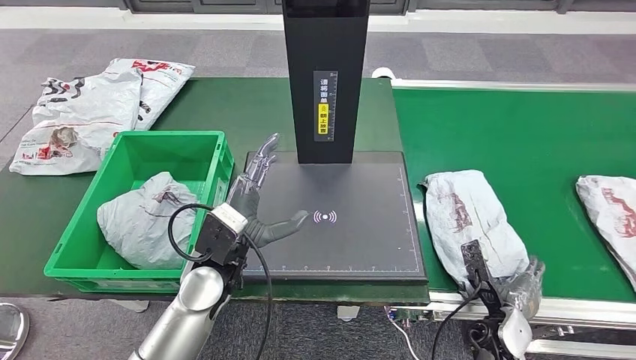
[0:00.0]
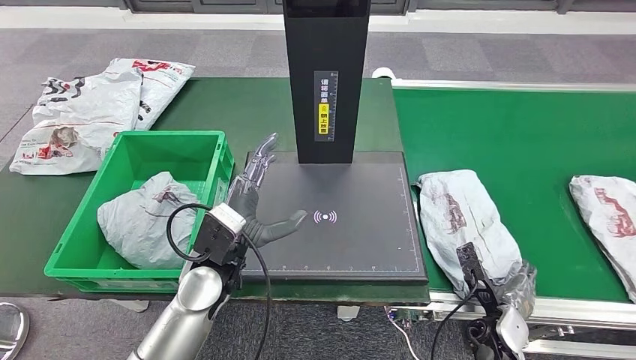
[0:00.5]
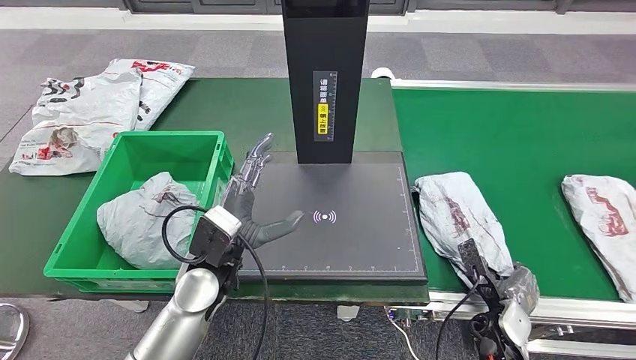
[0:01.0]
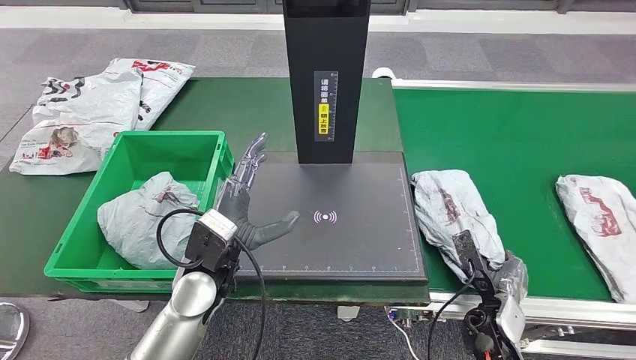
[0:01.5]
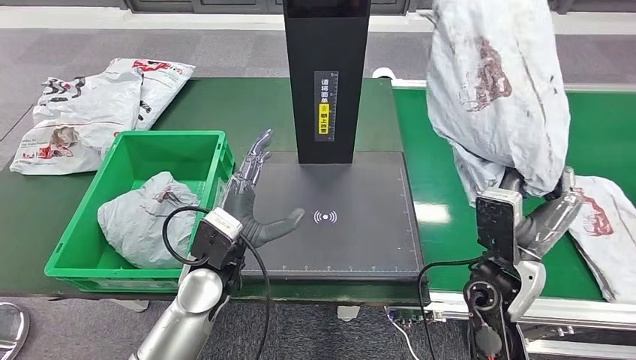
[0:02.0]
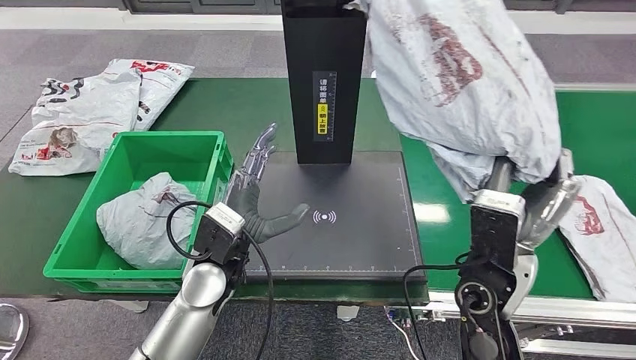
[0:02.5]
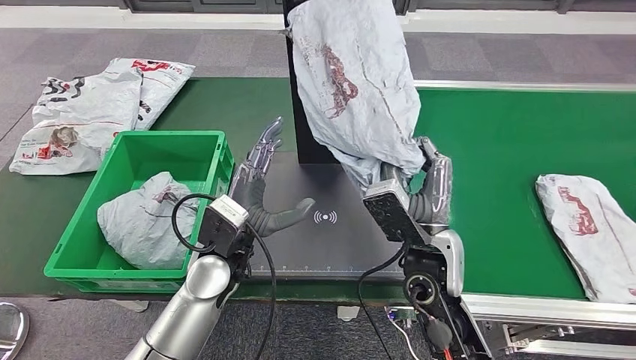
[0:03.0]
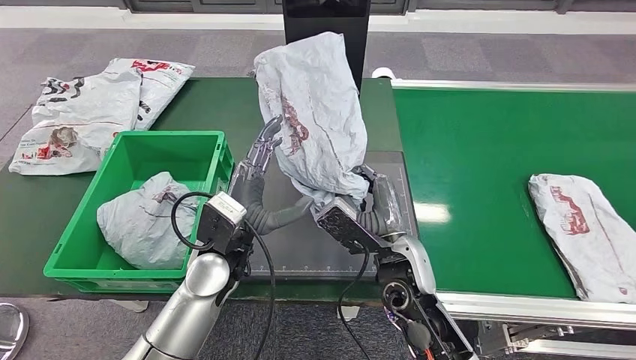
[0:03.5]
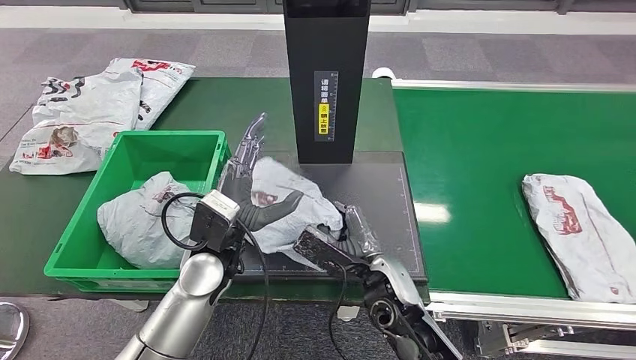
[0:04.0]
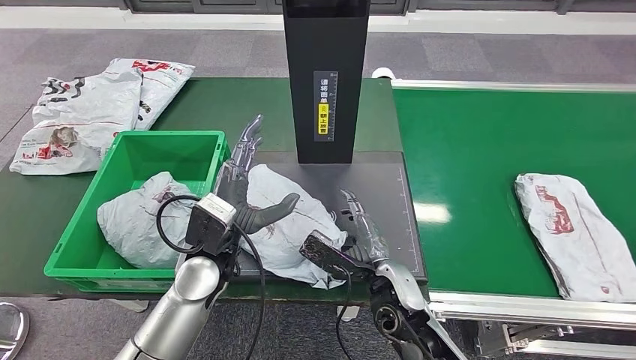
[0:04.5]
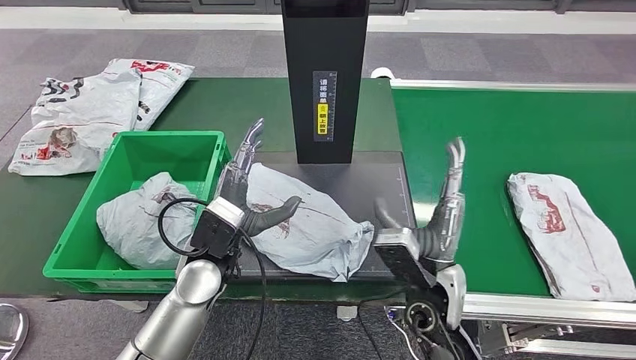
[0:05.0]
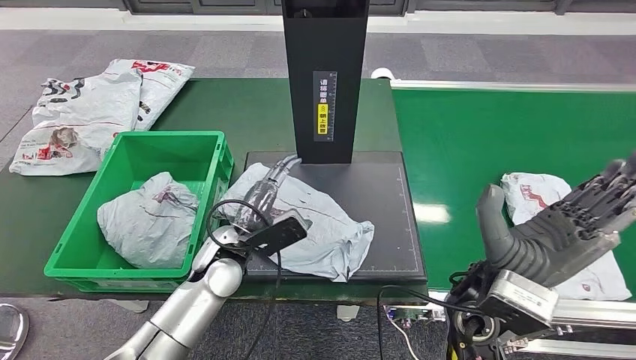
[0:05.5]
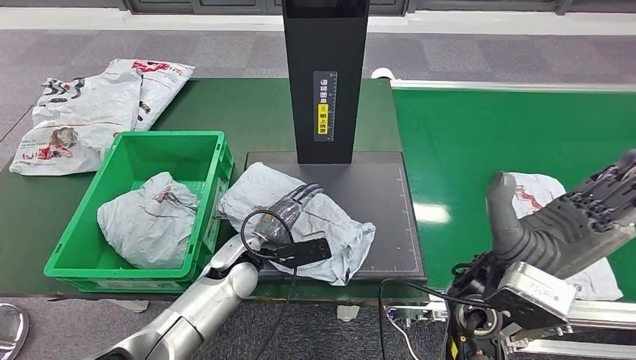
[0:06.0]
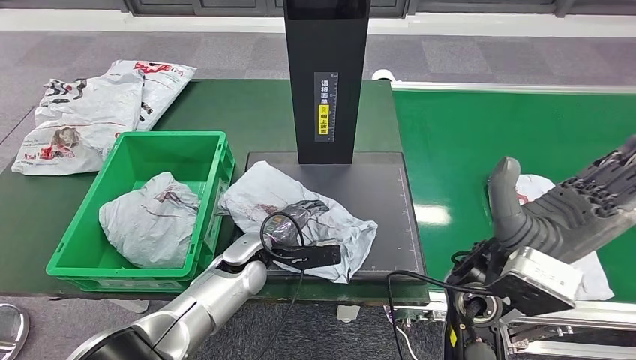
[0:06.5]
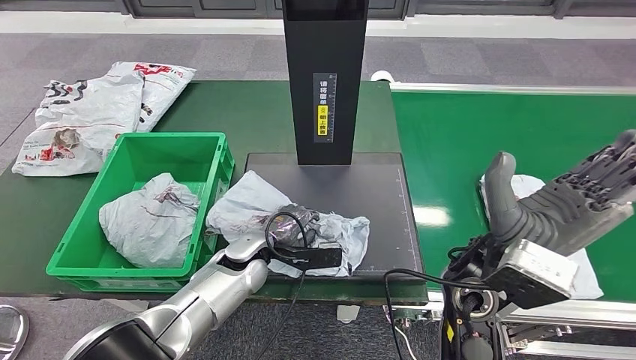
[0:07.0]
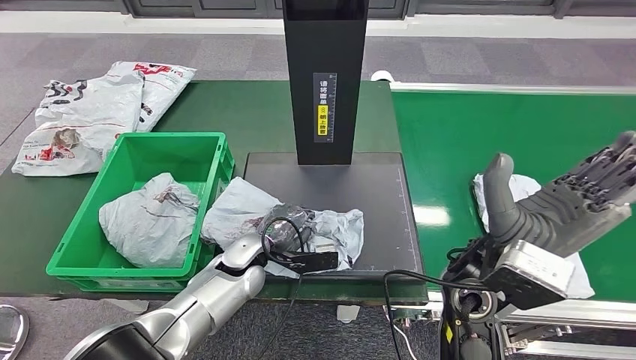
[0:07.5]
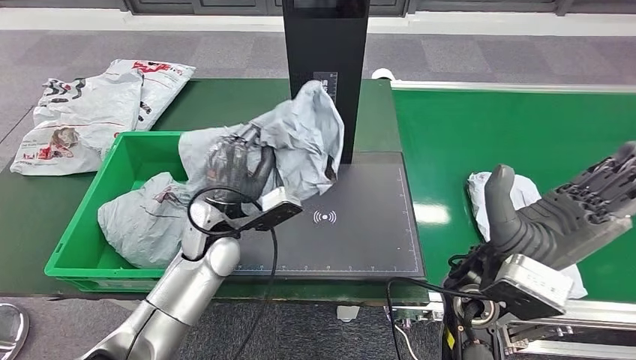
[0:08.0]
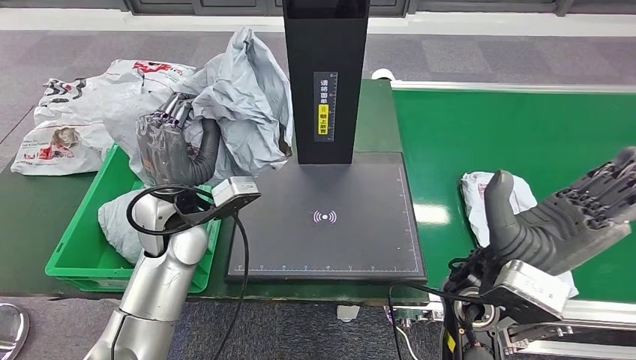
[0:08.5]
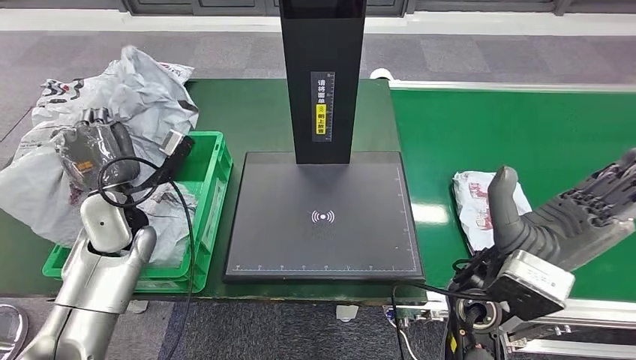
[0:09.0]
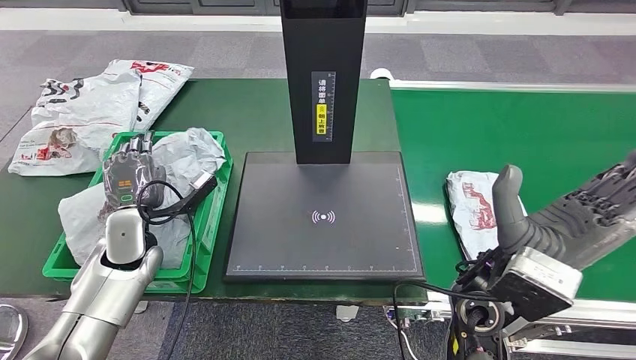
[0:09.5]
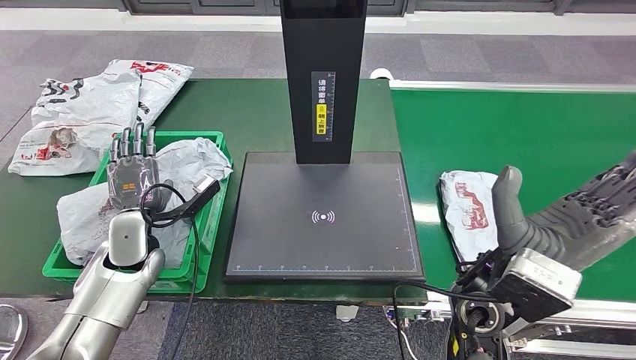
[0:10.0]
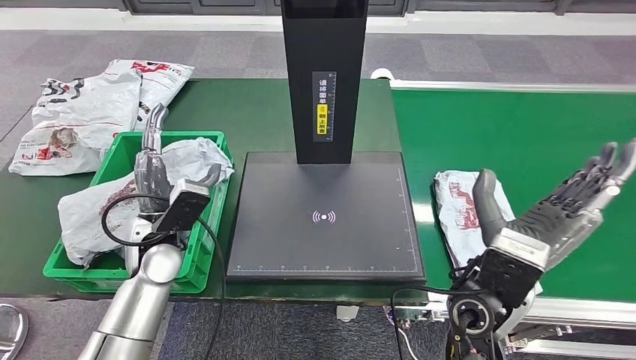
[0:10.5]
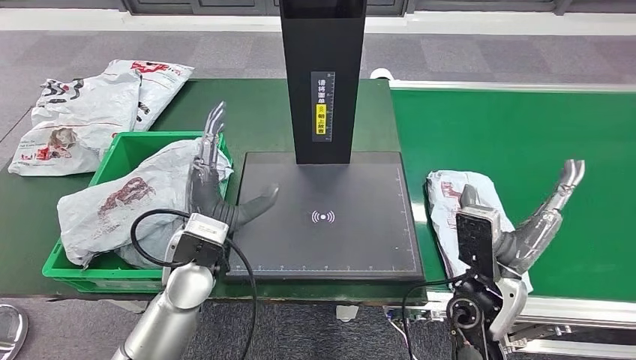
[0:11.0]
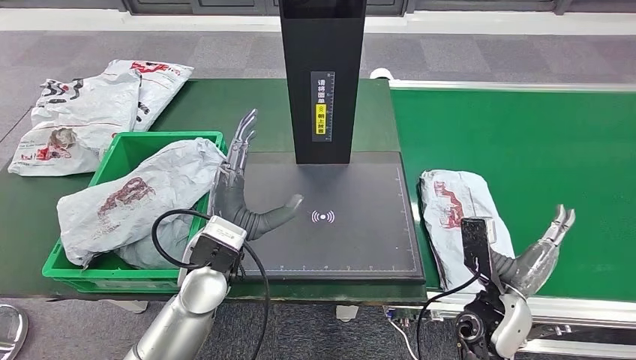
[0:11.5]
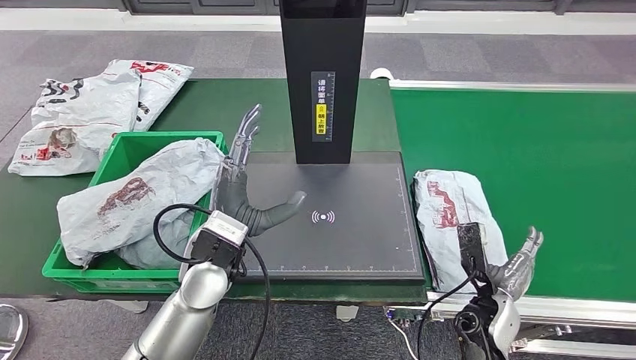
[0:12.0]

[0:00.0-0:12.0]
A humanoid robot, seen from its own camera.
Step, 0:00.0 to 0:02.0: Pick up the parcel from the conveyor belt.
Step, 0:02.5 to 0:05.5: Place the parcel onto the inbound machine.
Step, 0:06.0 to 0:08.0: Pick up the parcel from the inbound machine.
Step, 0:08.5 to 0:10.0: Place the parcel into the delivery box.
0:10.0 to 0:12.0: The left hand travels to the right by approximately 20 cm, while the right hand travels downward by some 20 cm.

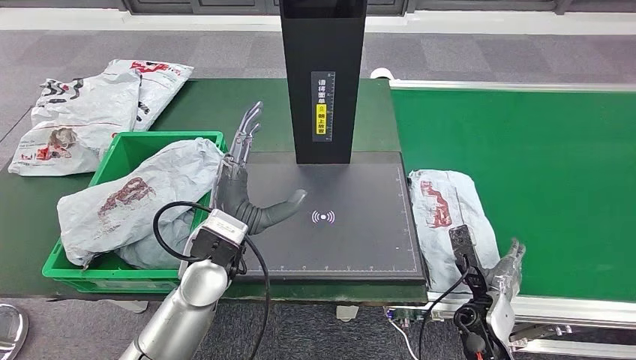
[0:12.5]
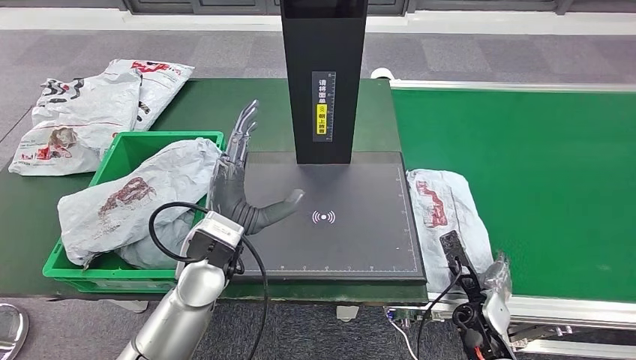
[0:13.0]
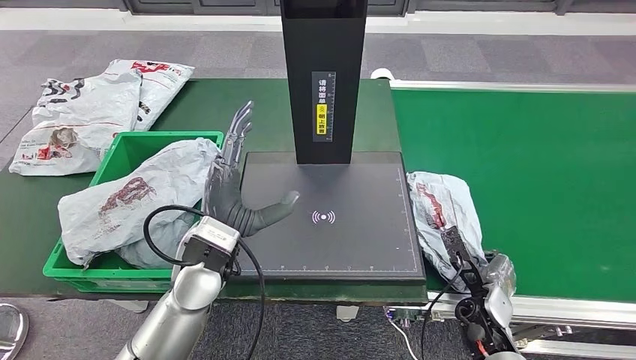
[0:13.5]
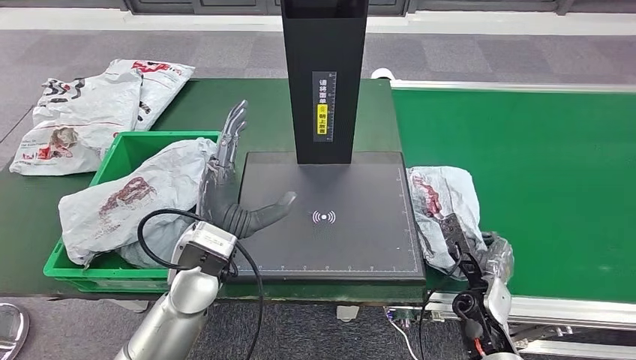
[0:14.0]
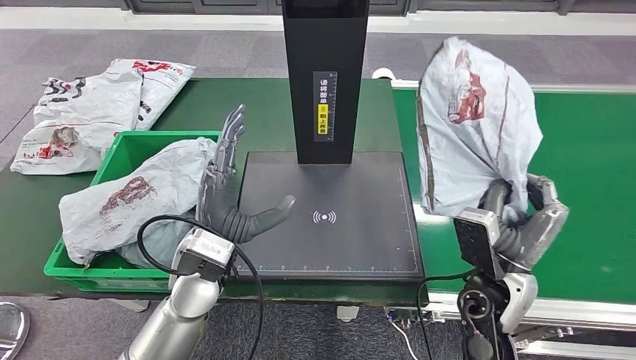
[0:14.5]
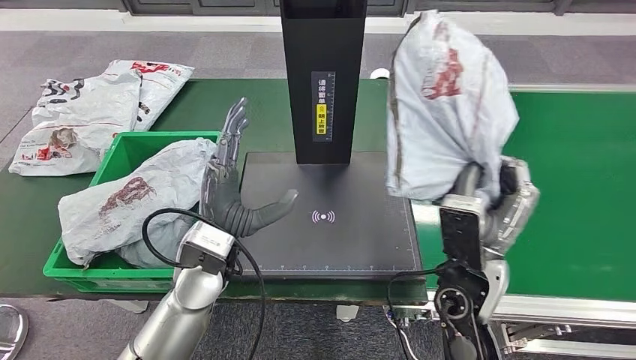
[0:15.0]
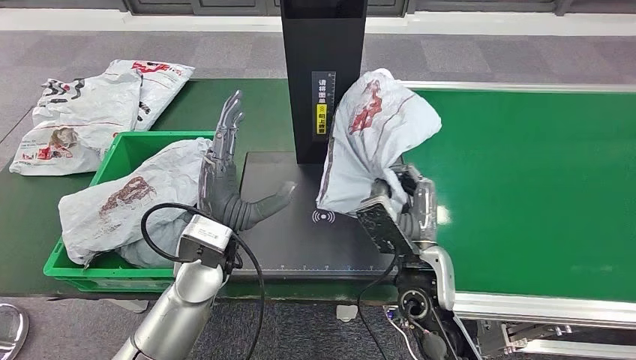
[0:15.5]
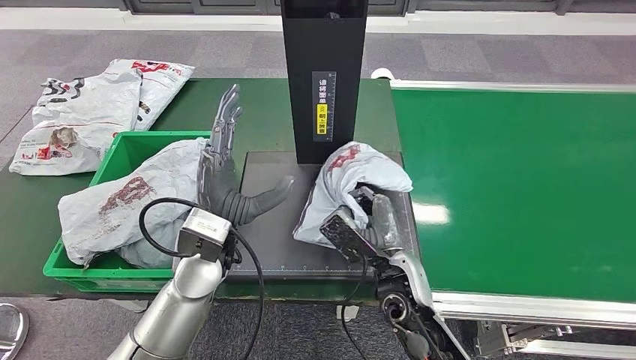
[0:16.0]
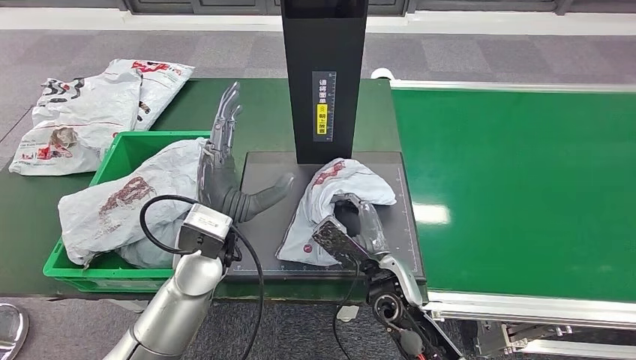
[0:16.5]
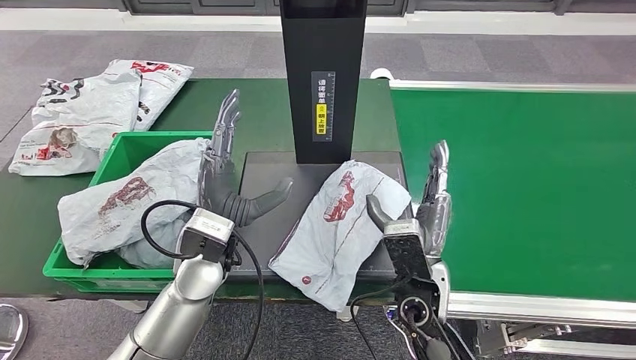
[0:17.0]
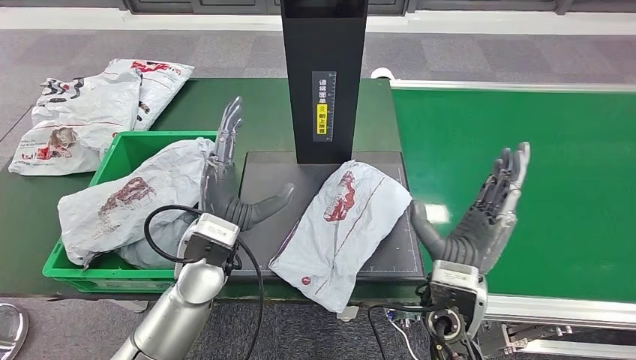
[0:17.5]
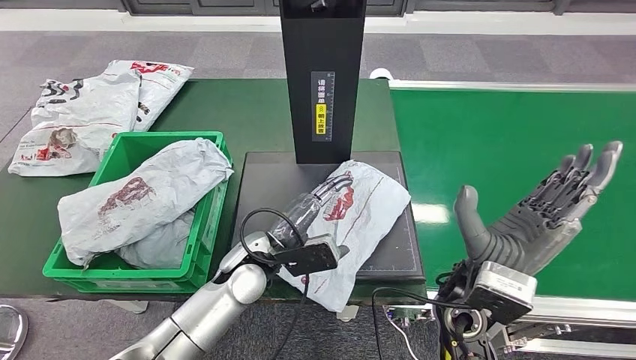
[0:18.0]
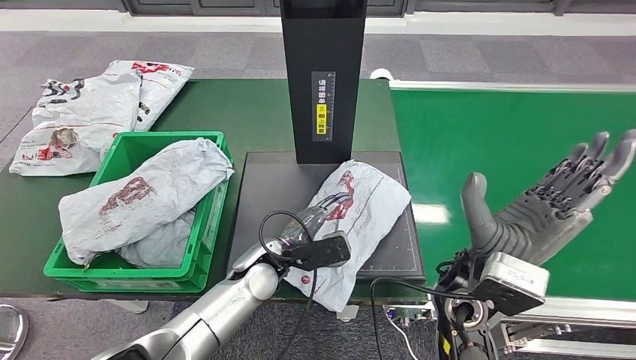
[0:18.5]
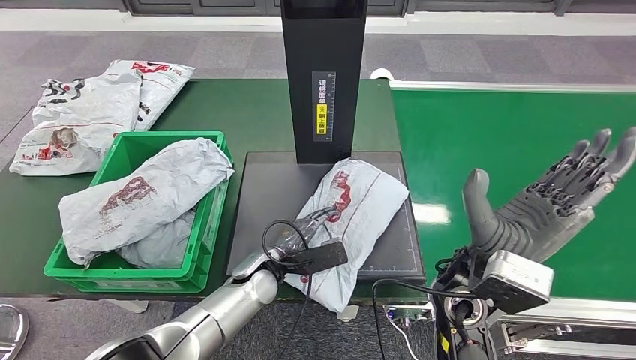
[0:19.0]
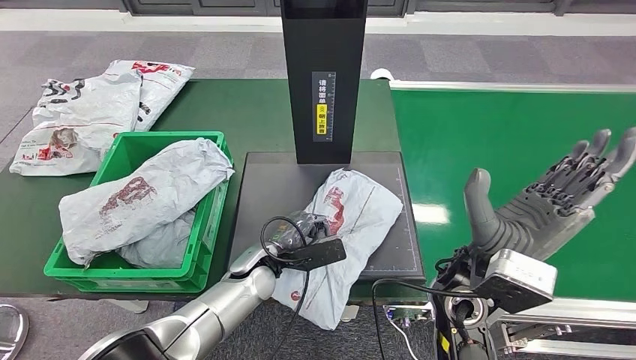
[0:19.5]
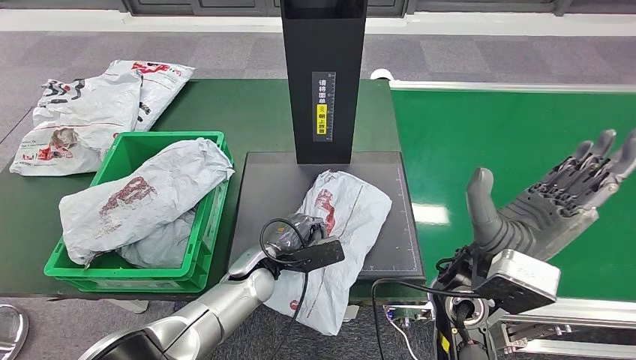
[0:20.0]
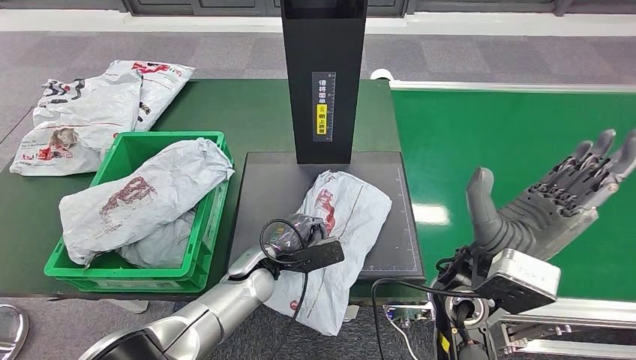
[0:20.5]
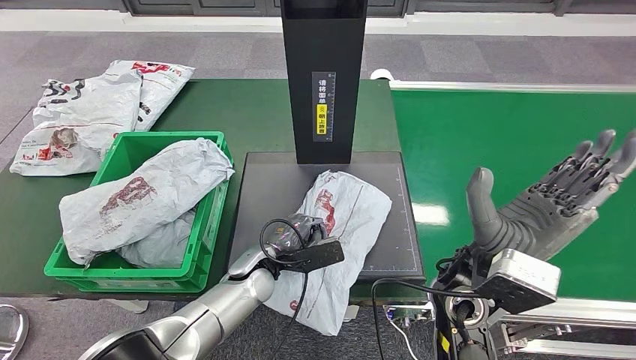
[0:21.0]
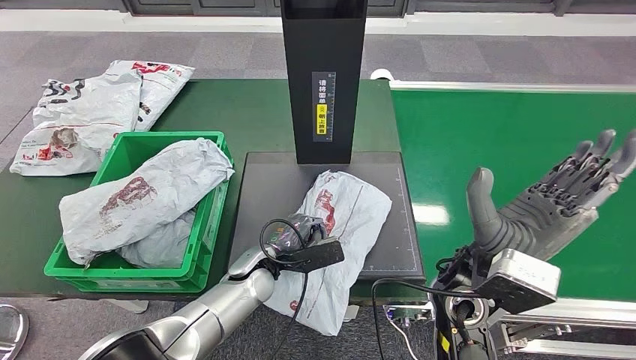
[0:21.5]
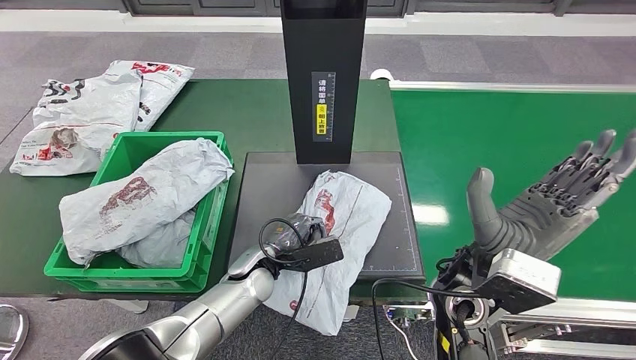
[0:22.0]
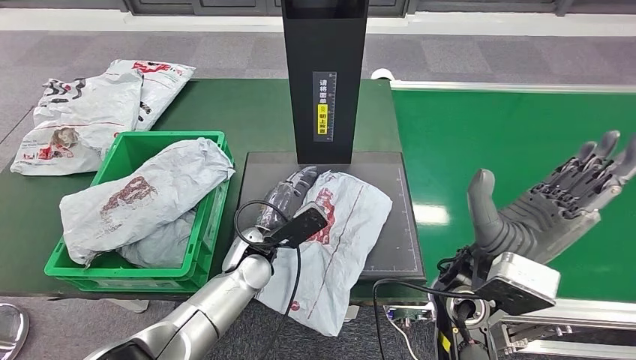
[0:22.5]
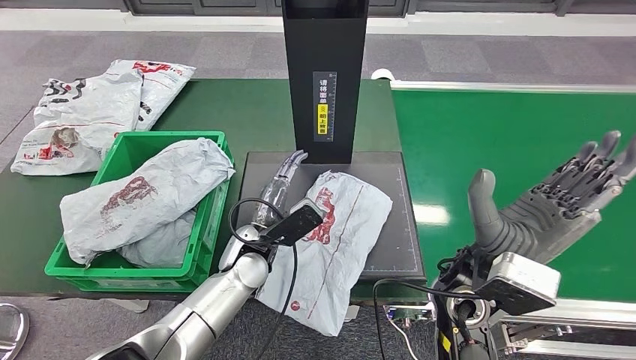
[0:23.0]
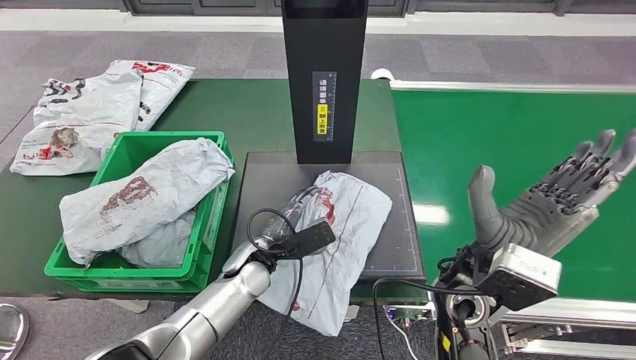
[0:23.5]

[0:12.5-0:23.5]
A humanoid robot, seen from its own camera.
Step, 0:14.5 to 0:17.0: Place the parcel onto the inbound machine.
0:18.0 to 0:20.0: The left hand shifts about 10 cm downward.
0:20.0 to 0:21.5: Both hands stay about where they are.
